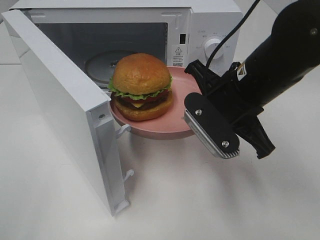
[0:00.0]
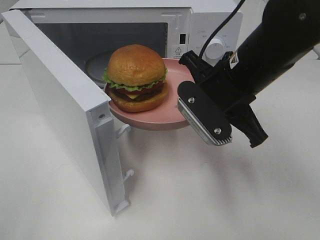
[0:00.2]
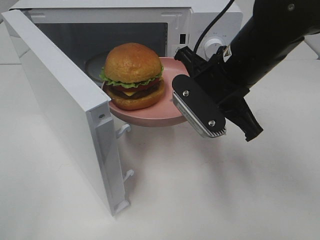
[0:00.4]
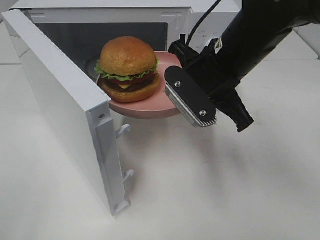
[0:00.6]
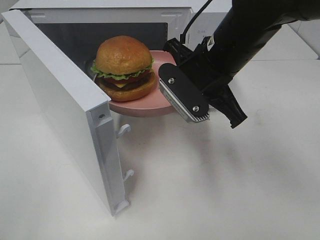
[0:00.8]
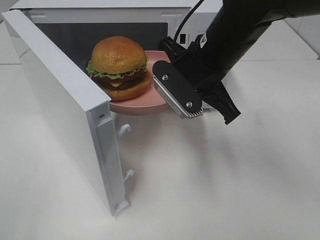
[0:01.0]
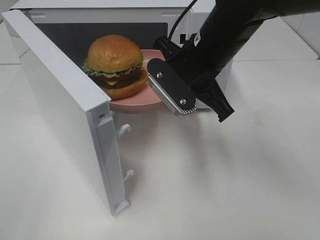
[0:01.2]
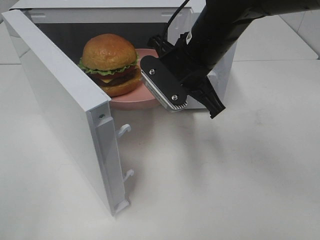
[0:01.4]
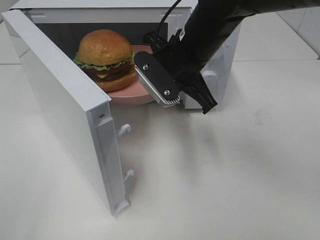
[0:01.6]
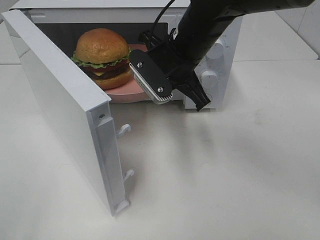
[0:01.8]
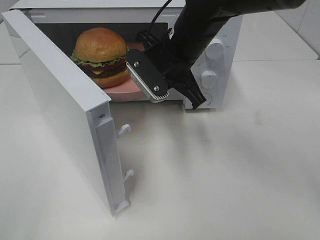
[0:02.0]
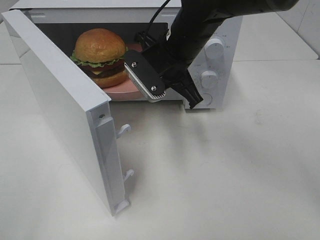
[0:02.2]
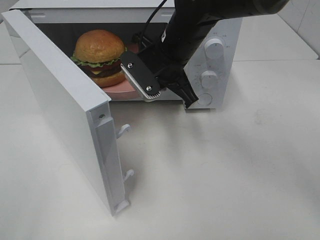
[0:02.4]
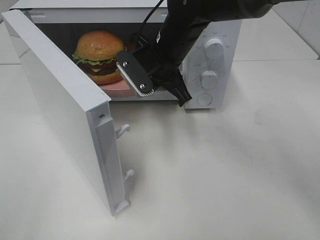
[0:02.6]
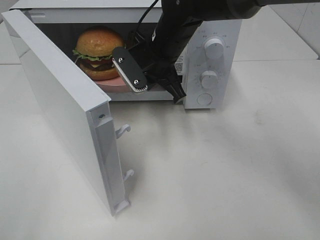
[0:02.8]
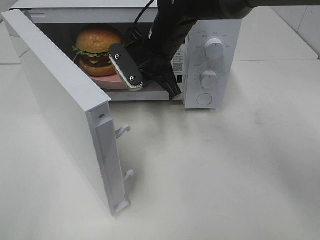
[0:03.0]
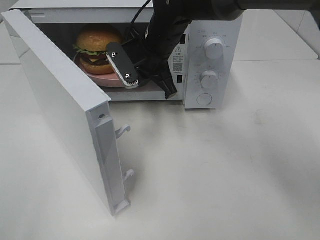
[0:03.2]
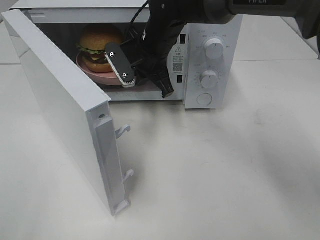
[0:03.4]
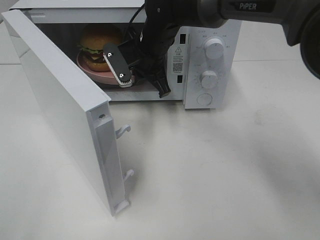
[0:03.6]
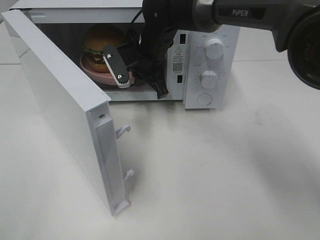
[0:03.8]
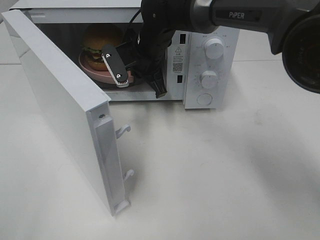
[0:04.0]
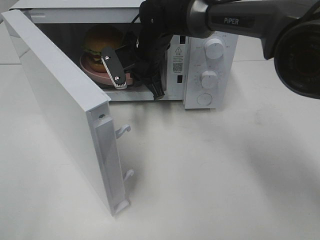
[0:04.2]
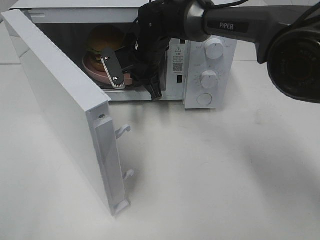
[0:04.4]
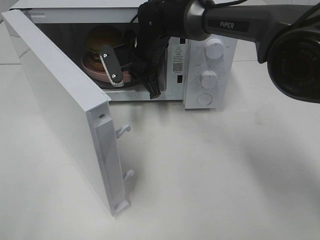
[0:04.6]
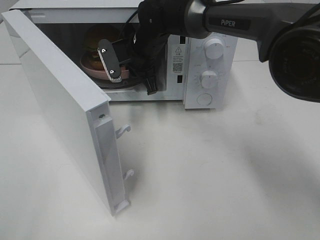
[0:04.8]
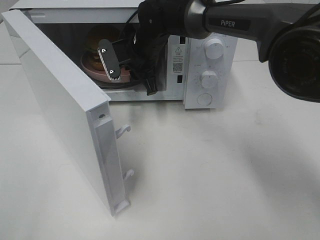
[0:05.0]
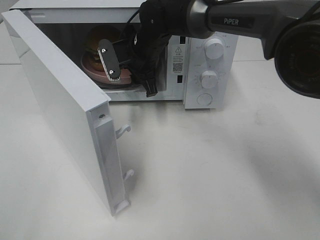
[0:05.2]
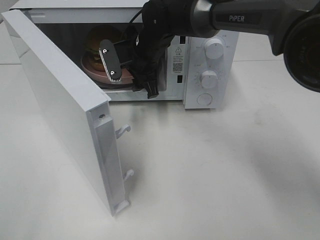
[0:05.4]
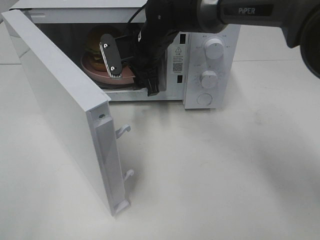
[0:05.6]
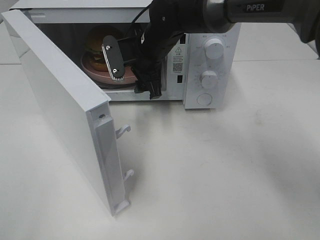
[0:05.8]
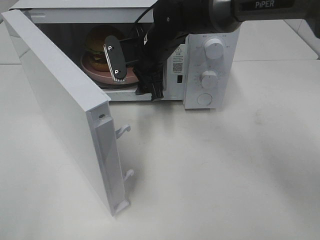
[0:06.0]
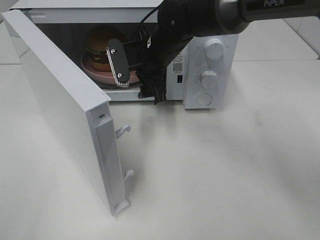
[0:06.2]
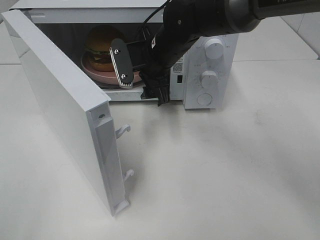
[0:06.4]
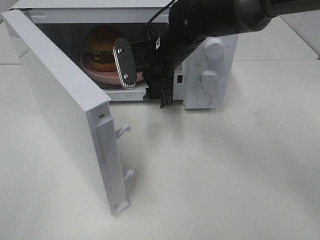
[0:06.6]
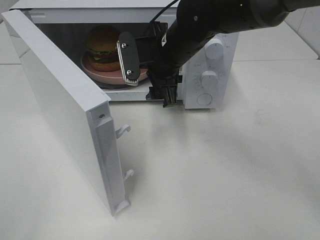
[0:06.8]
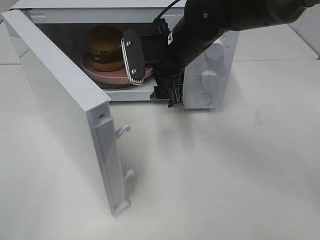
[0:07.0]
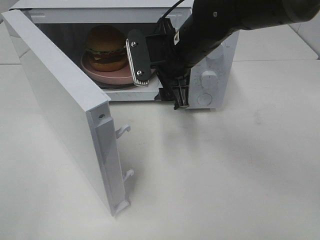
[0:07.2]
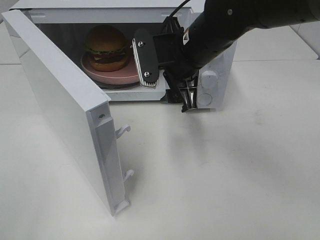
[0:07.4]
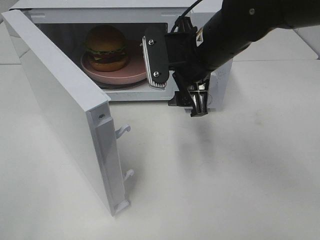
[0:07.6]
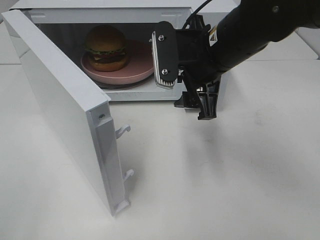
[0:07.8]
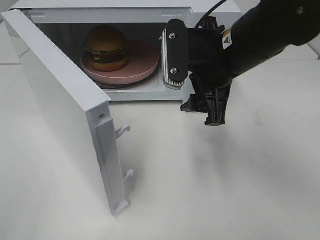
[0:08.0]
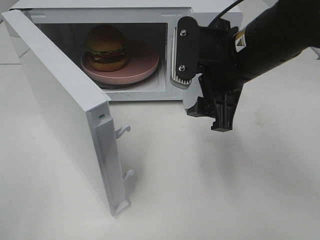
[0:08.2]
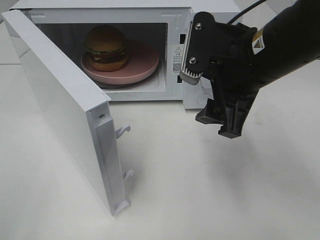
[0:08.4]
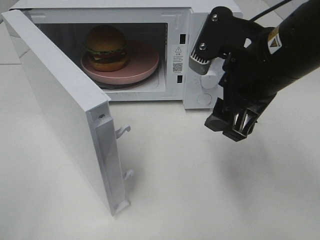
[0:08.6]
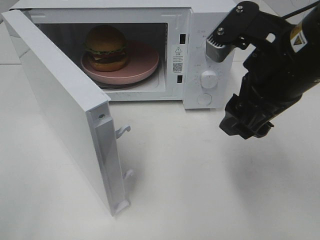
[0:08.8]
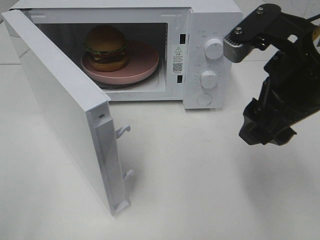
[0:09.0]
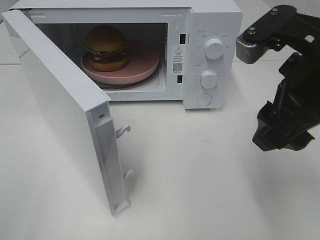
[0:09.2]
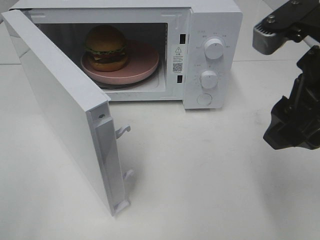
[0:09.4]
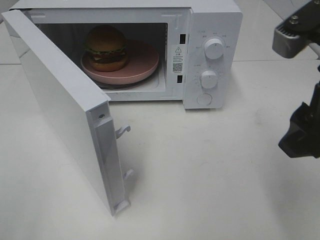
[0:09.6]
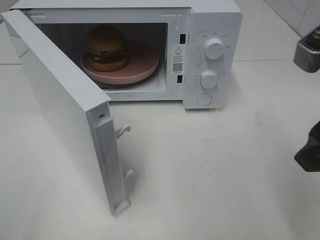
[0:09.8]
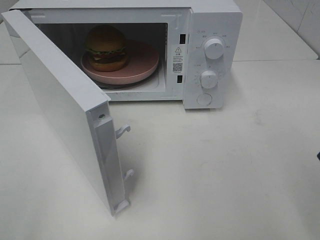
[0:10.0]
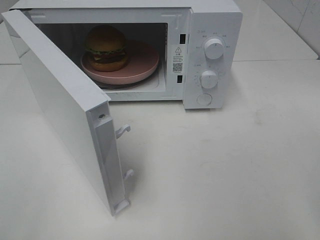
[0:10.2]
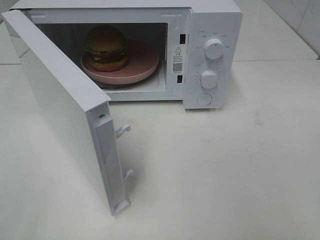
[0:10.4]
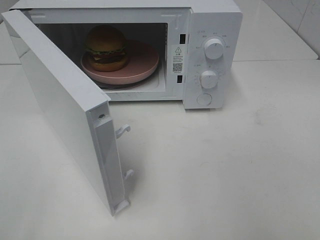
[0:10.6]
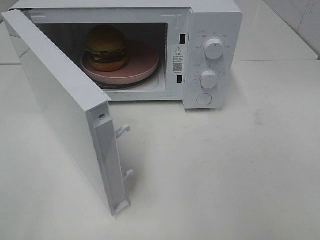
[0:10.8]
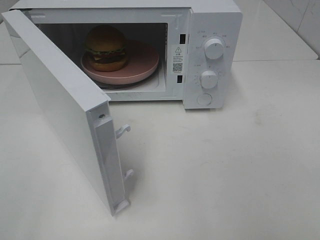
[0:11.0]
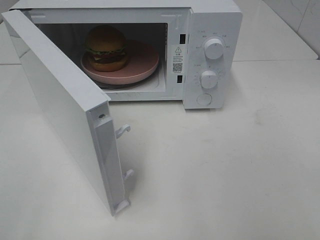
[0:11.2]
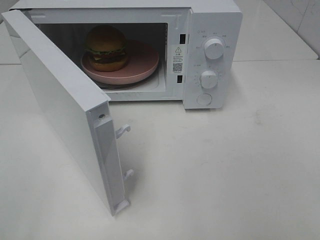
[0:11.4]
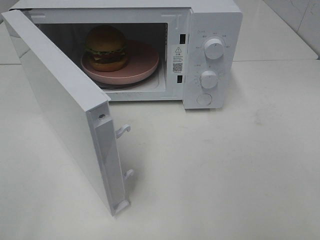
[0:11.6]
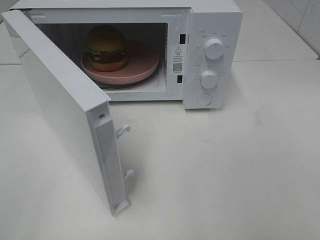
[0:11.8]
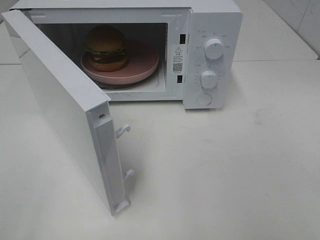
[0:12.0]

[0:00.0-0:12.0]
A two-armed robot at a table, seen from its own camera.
Task of the whole recording: Heat the burger.
Step, 0:00.0 to 0:05.2: Right hand: place the plate in the microwave.
0:00.0 to 0:01.6: The right gripper heads forward and to the left, covering some 10 cm.
0:01.6 to 0:03.0: The right gripper heads forward, covering about 5 cm.
0:03.0 to 0:04.4: The right gripper ends up approximately 5 cm from where it was.
0:04.4 to 0:06.0: The right gripper opens up.
0:06.0 to 0:07.6: The right gripper goes some 10 cm backward and to the right.
0:07.6 to 0:09.0: The right gripper travels backward and to the right by approximately 15 cm.
0:09.0 to 0:10.4: The right gripper moves to the right and backward, roughly 15 cm.

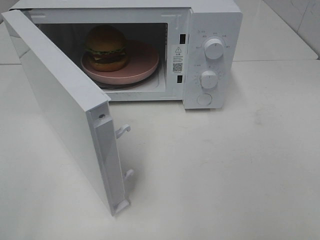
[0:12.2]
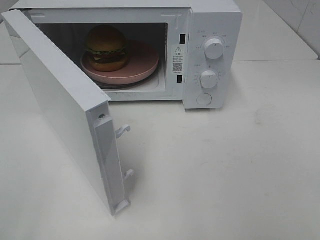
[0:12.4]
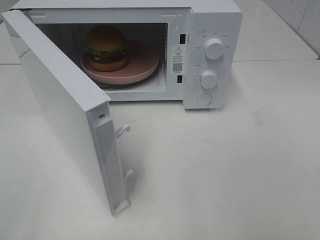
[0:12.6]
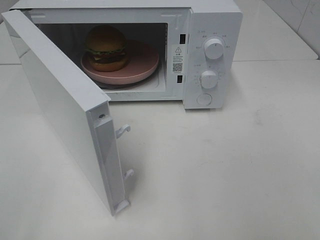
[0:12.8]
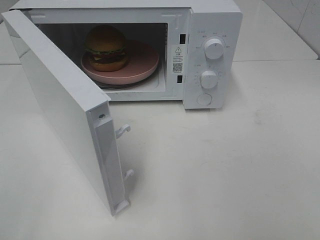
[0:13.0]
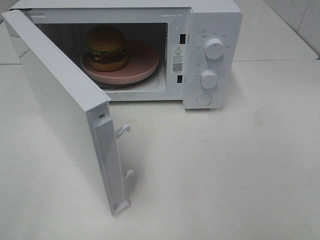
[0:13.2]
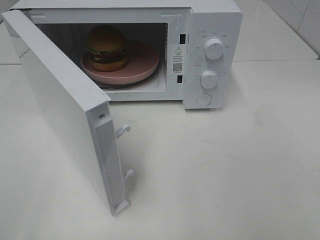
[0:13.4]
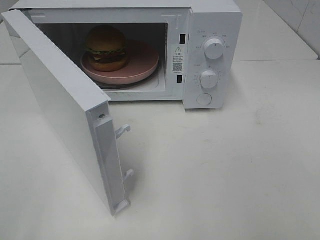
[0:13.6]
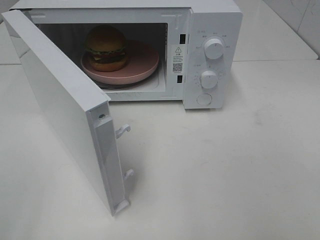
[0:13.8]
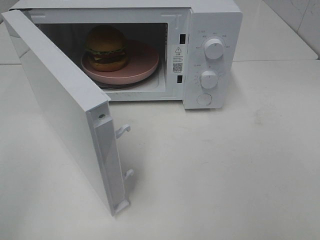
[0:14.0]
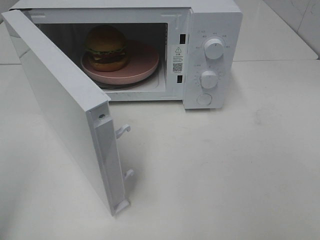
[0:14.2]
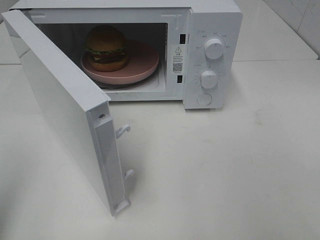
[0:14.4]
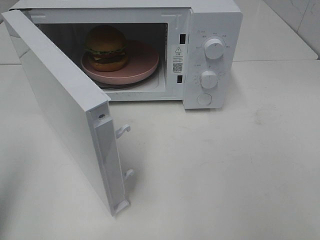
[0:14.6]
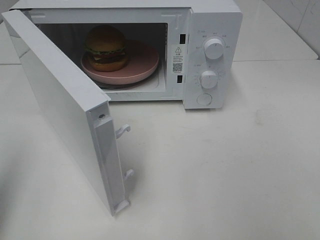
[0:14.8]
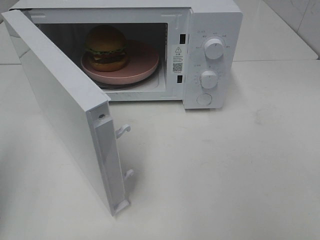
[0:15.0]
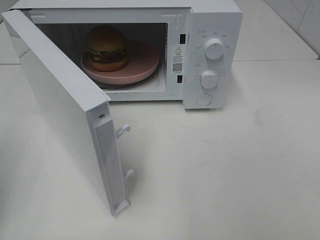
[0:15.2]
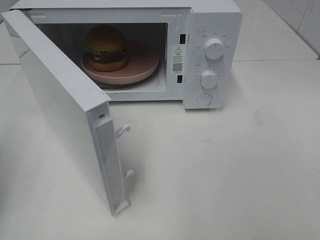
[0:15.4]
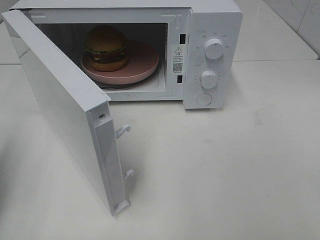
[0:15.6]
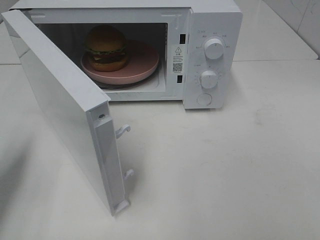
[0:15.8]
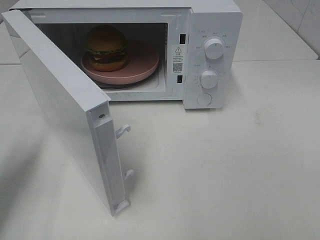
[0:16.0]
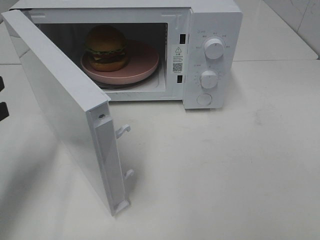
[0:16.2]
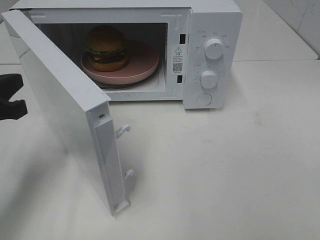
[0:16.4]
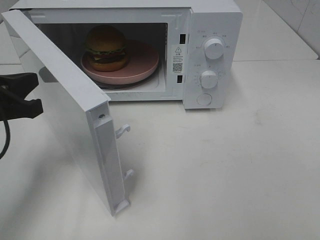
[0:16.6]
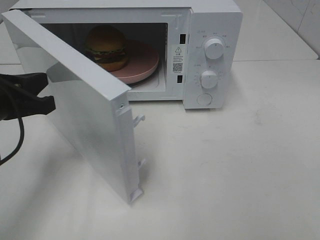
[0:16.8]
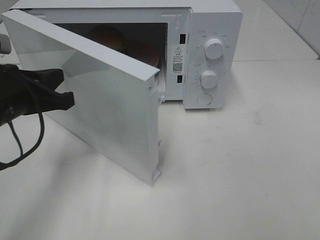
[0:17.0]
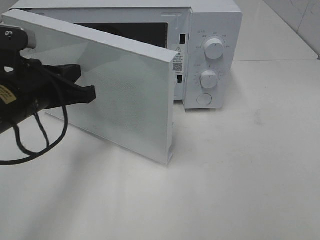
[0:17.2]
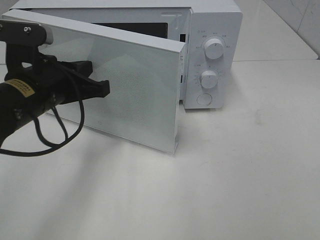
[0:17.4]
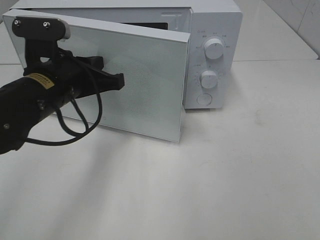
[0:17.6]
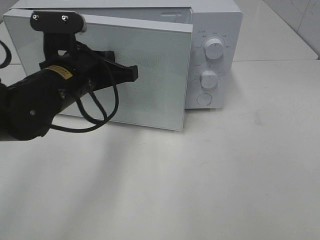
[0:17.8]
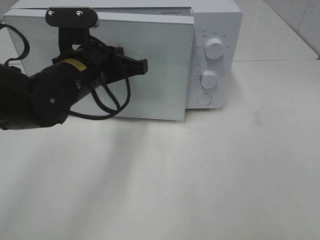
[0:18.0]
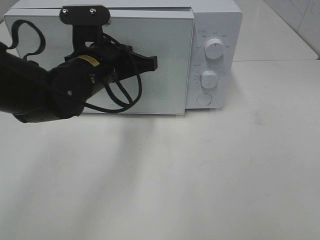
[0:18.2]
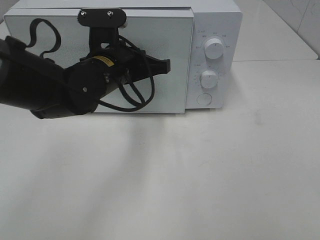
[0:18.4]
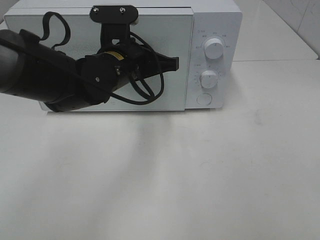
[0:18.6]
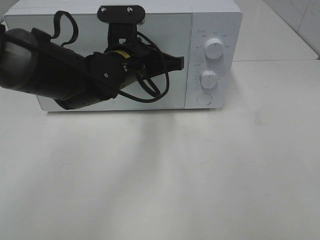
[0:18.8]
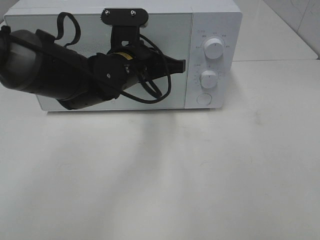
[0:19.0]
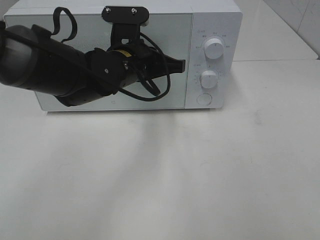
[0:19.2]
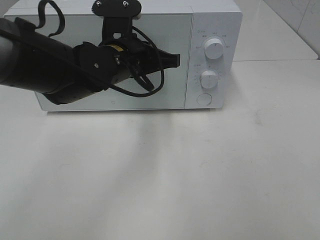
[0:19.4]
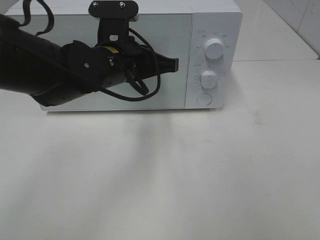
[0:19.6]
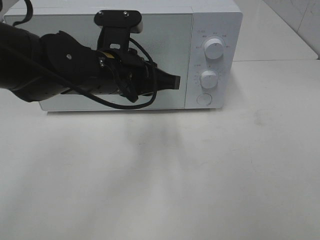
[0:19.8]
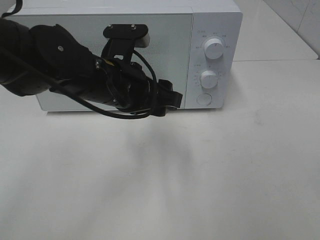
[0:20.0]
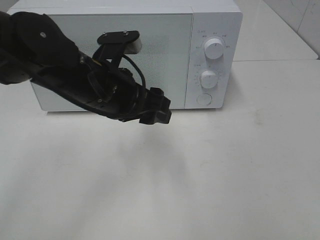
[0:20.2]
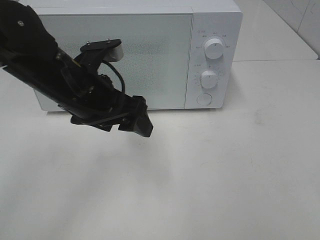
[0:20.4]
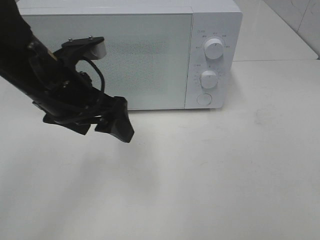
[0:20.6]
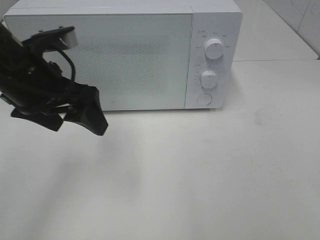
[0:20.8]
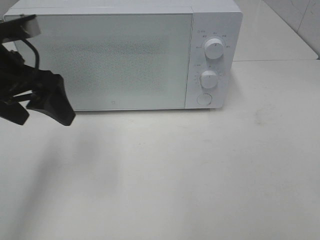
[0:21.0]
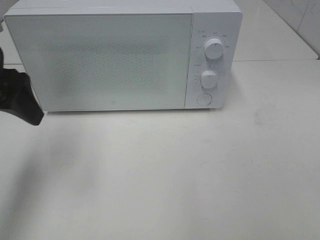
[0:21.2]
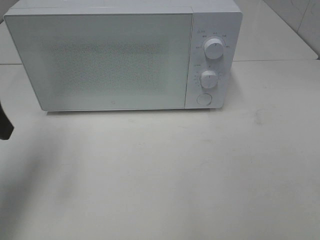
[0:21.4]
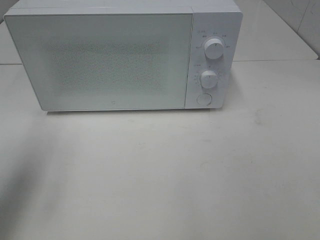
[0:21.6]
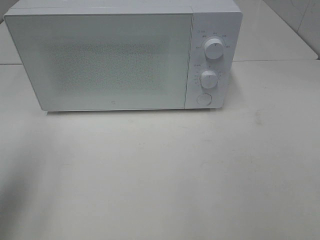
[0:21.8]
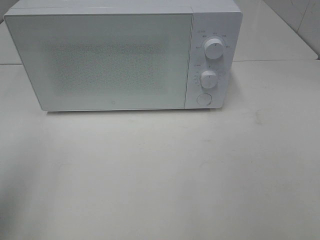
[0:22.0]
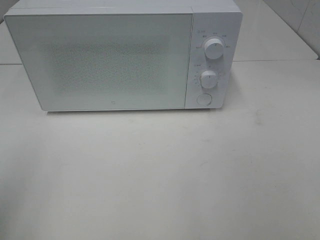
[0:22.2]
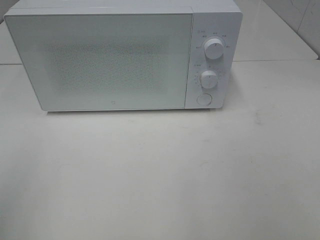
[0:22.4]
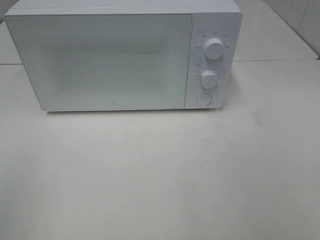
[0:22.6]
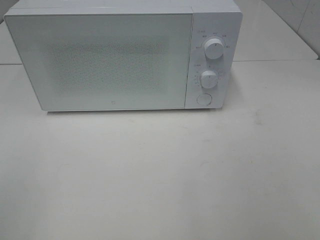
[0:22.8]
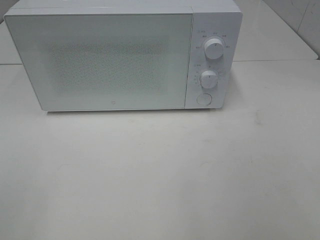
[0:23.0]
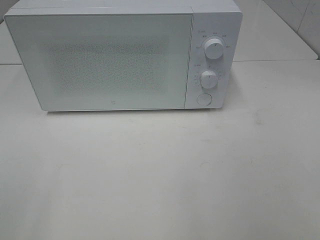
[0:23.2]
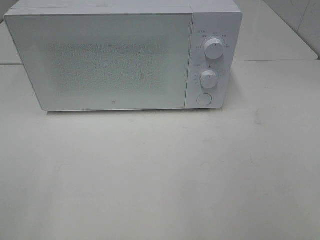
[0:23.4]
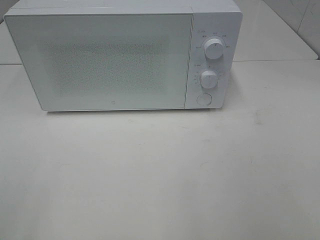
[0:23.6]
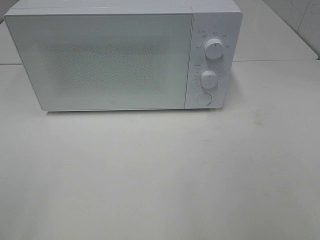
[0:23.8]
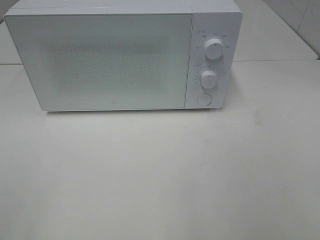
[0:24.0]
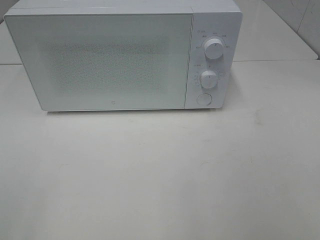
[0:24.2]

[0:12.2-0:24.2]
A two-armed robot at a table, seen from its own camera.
Task of the whole recording: Heat the burger.
Step, 0:12.2 to 0:19.8: Left hand: close the microwave door.
0:15.2 to 0:16.6: The left gripper travels to the right, forward and downward by approximately 15 cm.
0:16.6 to 0:18.2: The left gripper travels to the right and forward by roughly 20 cm.
0:19.8 to 0:21.2: The left gripper travels to the left by approximately 20 cm, and opens its fingers.
0:21.2 to 0:22.6: The left gripper moves backward, approximately 20 cm.
